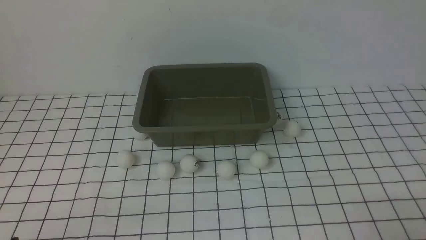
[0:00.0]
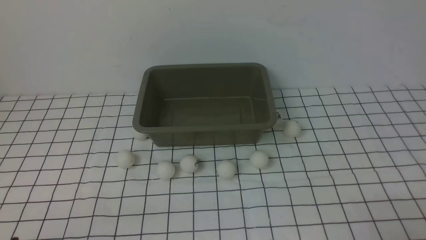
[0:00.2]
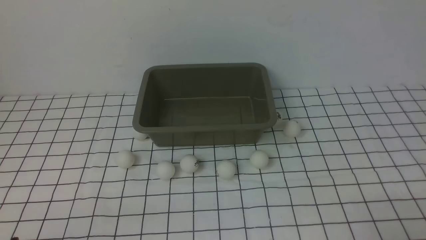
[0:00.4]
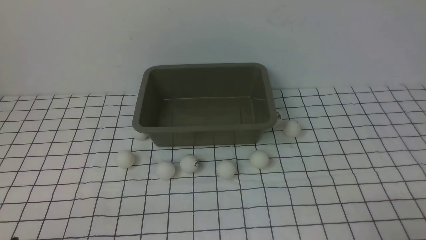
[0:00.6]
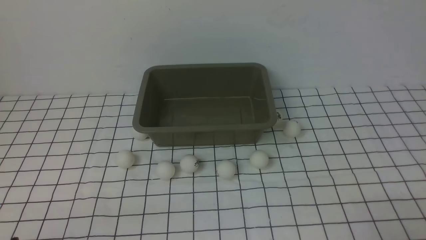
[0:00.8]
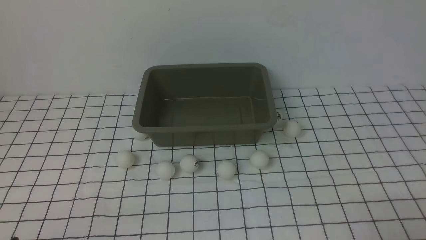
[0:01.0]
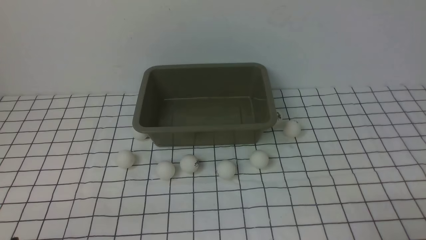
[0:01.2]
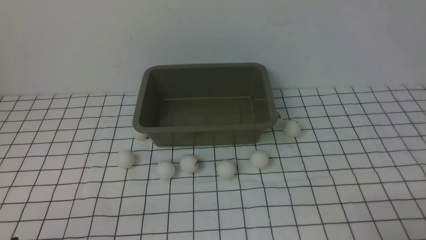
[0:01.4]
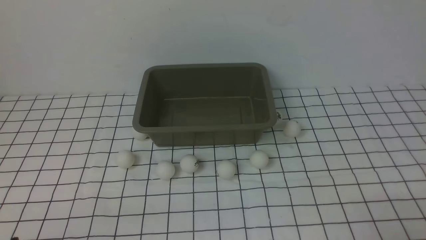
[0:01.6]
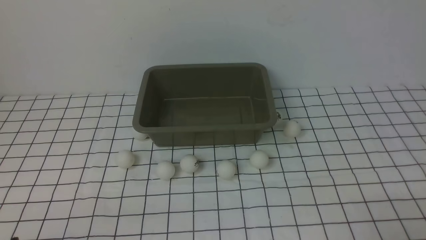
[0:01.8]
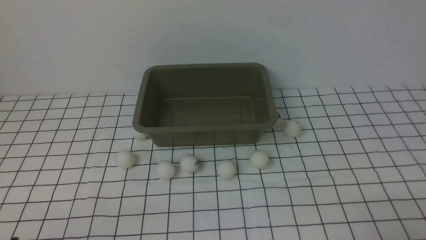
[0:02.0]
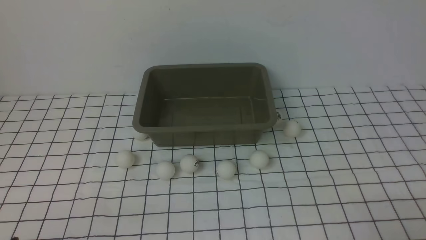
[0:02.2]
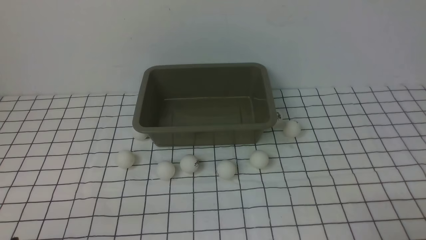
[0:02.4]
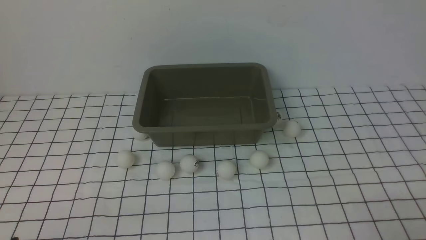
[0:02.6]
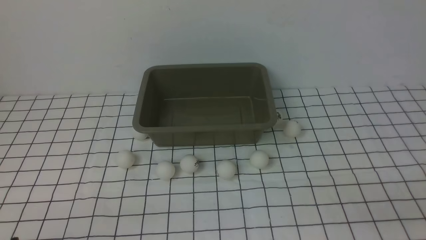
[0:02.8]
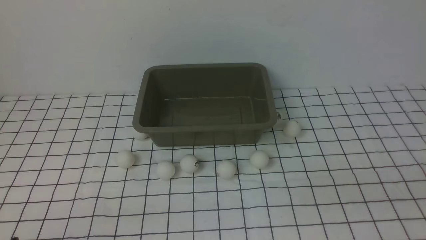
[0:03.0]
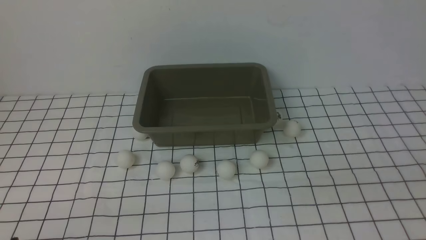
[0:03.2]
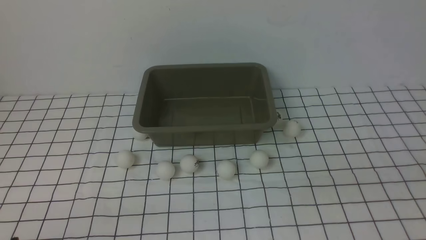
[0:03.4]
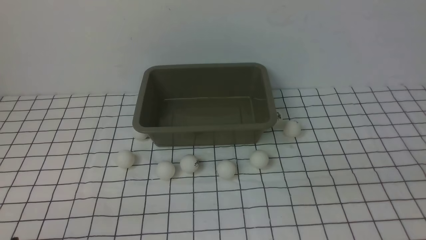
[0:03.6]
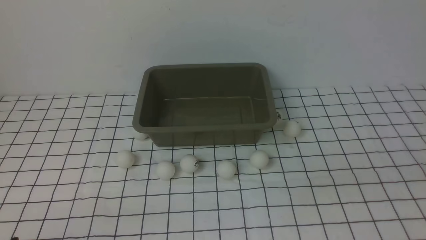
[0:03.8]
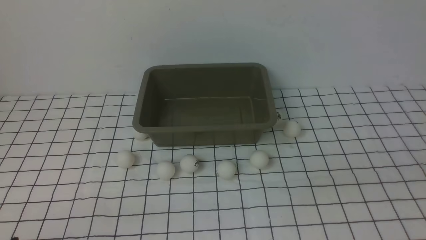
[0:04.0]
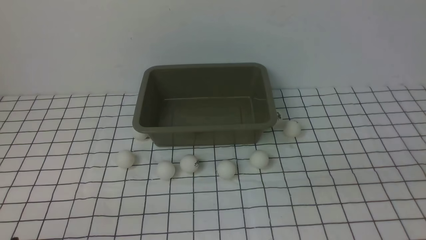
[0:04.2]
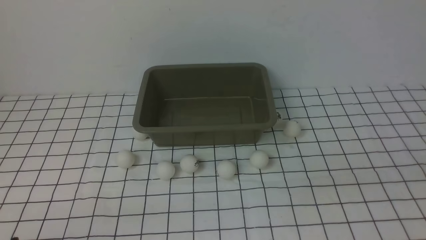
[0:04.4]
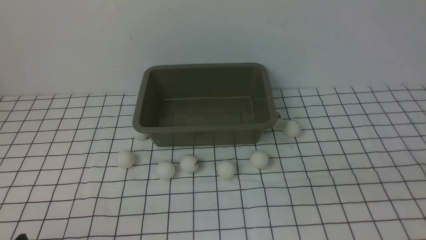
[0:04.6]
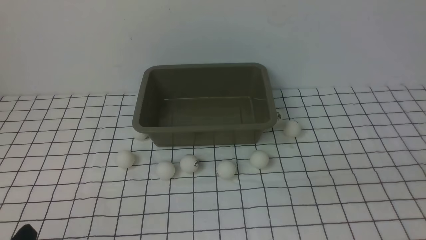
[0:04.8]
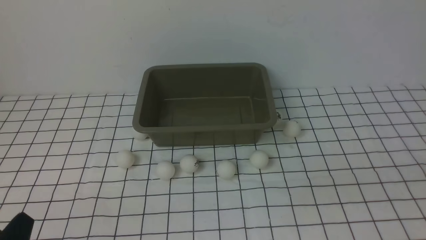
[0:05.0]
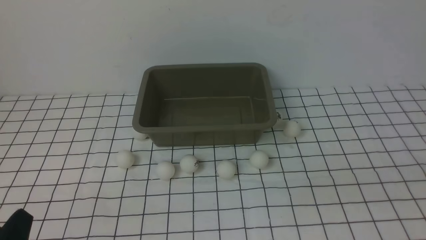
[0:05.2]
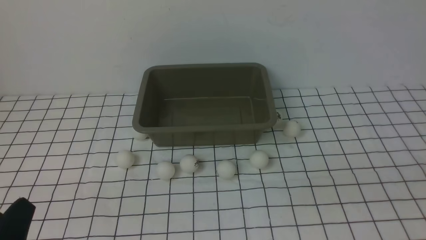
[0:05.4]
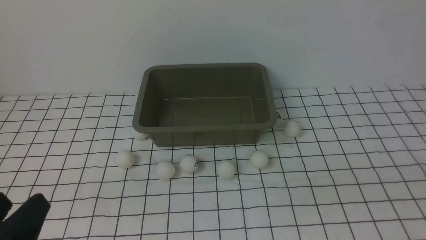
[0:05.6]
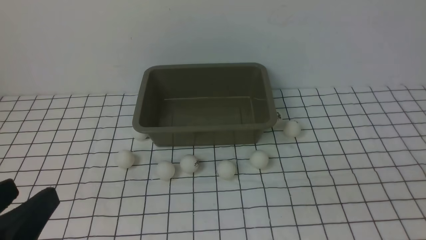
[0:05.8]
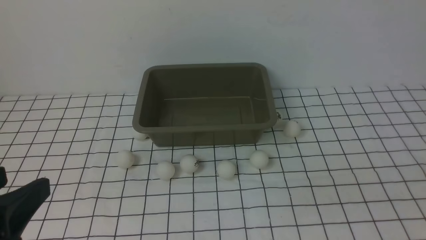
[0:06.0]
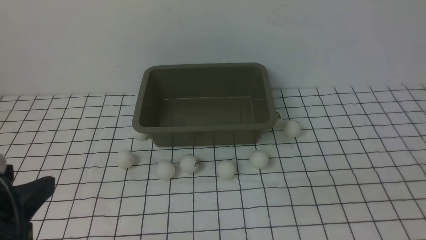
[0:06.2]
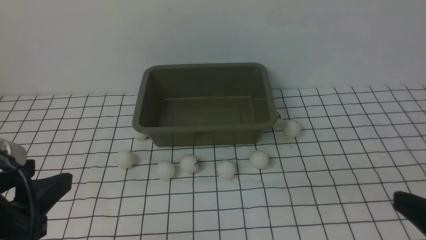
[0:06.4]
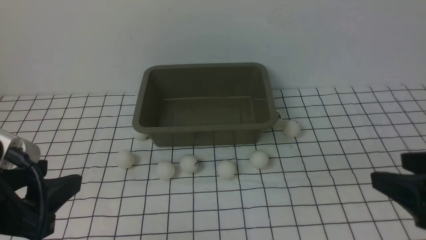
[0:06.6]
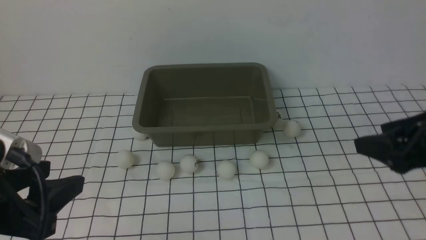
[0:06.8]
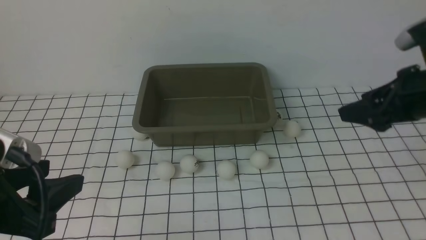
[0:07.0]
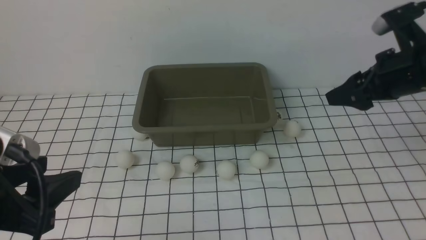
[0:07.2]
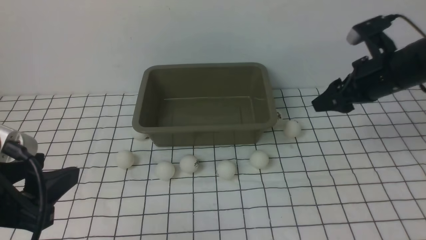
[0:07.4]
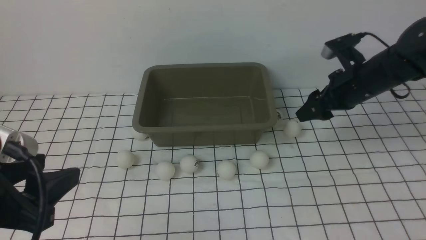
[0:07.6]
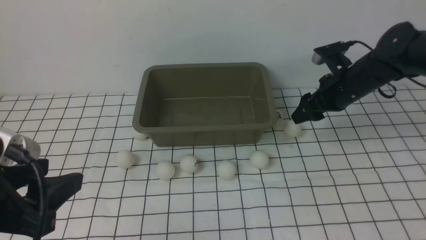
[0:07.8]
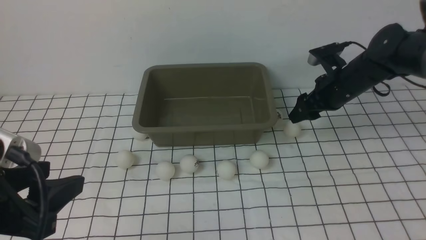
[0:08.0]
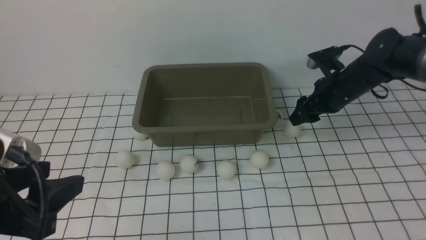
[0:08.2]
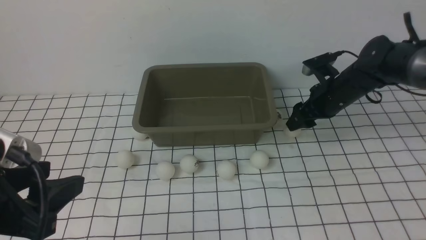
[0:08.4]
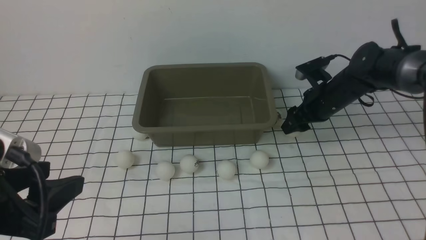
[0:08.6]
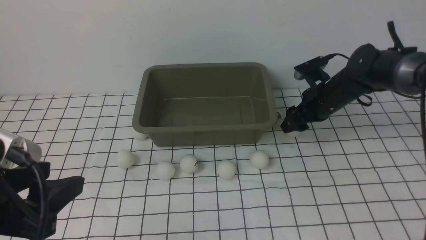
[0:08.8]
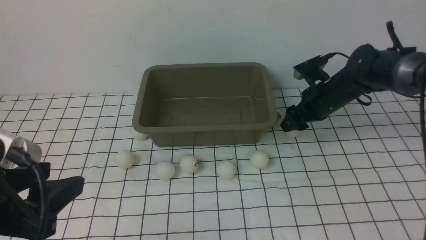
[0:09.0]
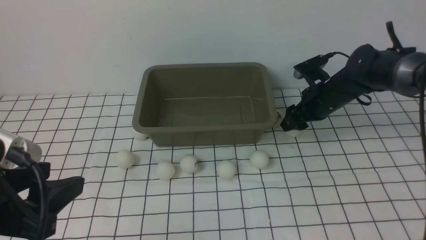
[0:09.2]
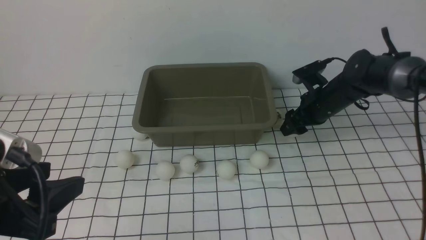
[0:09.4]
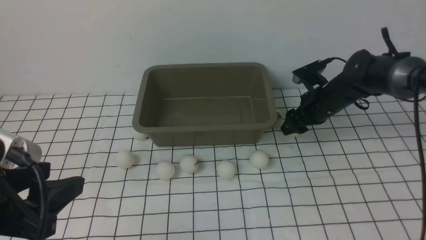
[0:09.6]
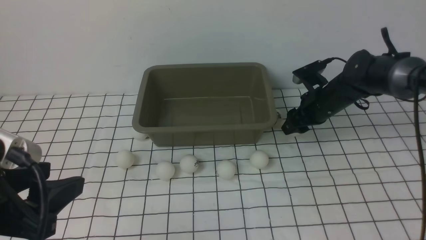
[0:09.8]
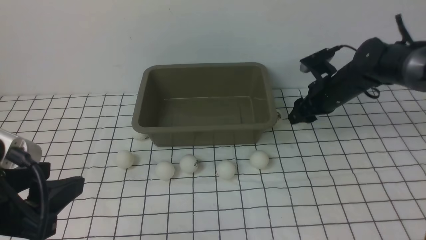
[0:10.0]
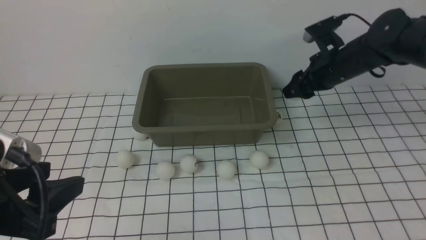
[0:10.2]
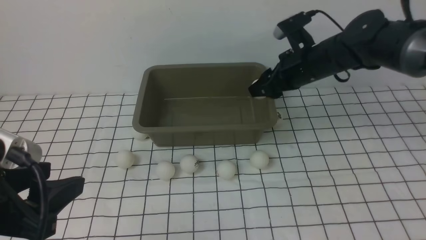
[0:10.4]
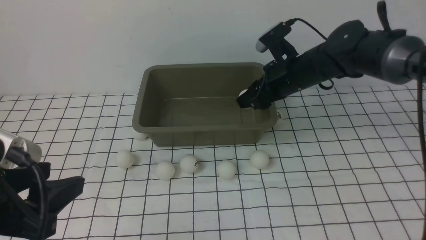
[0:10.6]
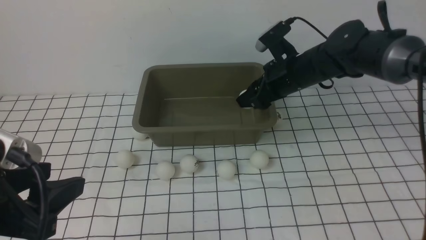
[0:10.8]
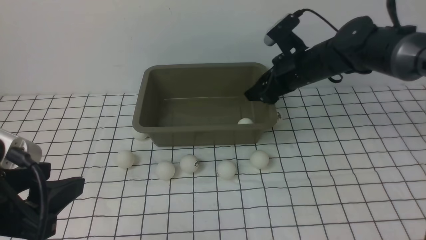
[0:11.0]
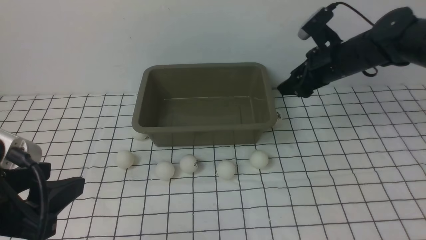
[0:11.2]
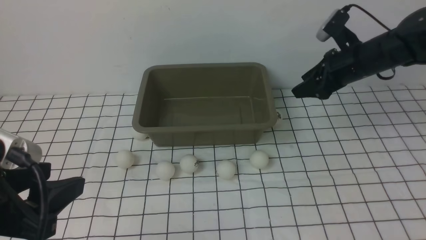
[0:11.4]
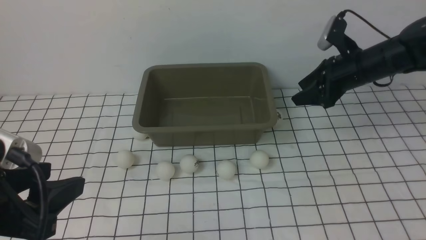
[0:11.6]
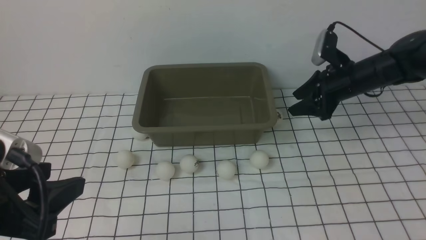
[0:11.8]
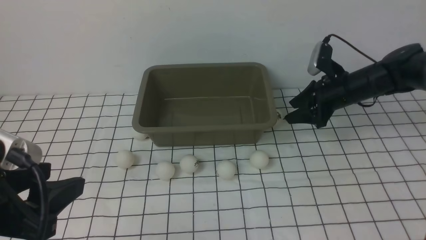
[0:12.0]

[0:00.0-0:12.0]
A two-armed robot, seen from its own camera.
Step, 0:00.0 to 0:10.0: use the right arm to clamp the table tennis ball closest to it.
Step, 0:10.2 to 0:11.0: use the right arm to put the table tennis ball into the box.
0:00.0 to 0:01.6: The two grippers keep their place.
0:04.4 to 0:06.0: The left gripper goes roughly 15 cm upward.
0:06.0 to 0:07.6: The left gripper moves forward, some 5 cm. Meanwhile the right gripper moves forward, roughly 40 cm.
0:07.6 to 0:09.0: The right gripper moves downward, approximately 5 cm.
0:09.0 to 0:10.4: The right gripper heads upward, covering approximately 10 cm, and closes its fingers.
0:10.4 to 0:12.0: The right gripper is displaced to the right and downward by approximately 10 cm.

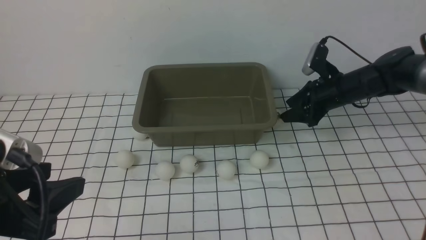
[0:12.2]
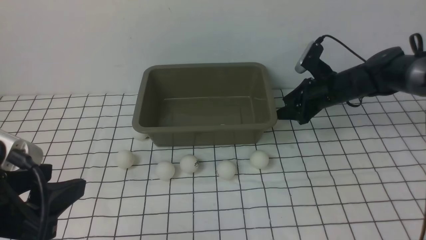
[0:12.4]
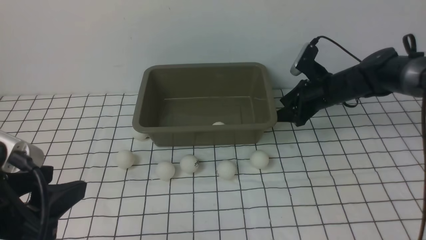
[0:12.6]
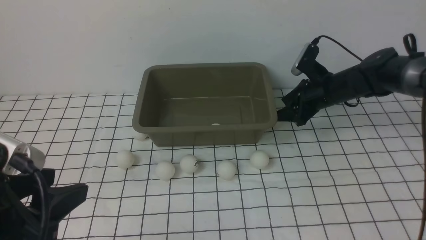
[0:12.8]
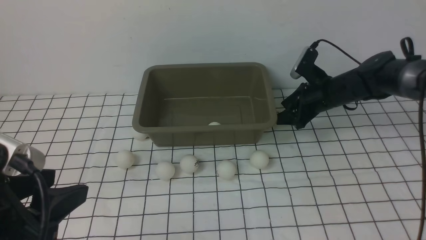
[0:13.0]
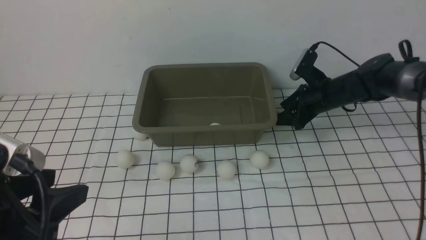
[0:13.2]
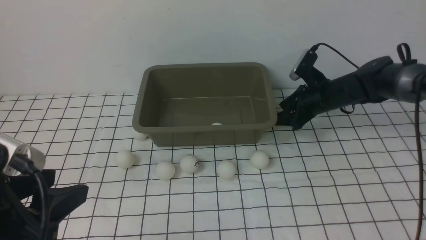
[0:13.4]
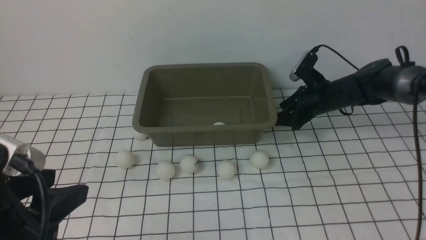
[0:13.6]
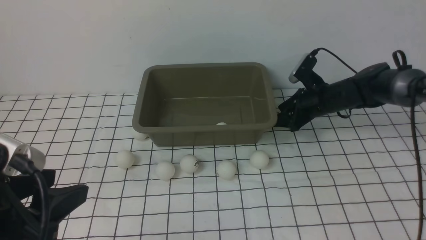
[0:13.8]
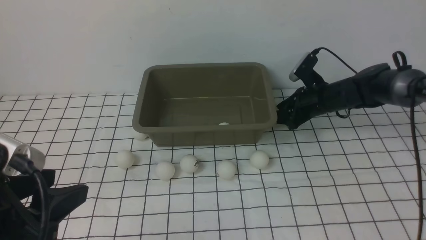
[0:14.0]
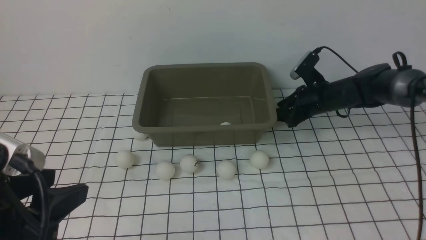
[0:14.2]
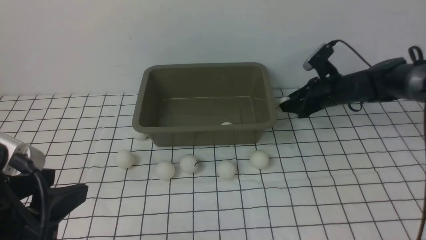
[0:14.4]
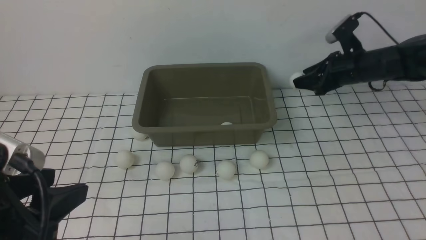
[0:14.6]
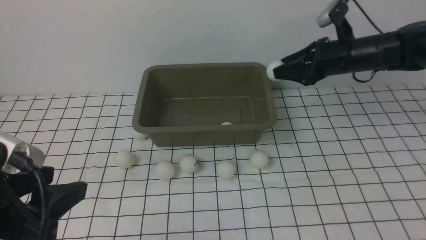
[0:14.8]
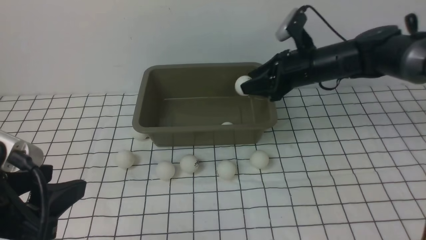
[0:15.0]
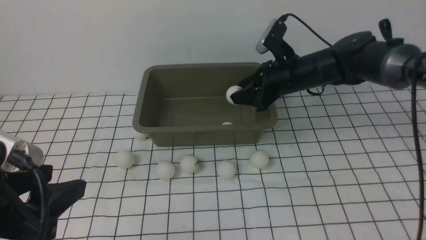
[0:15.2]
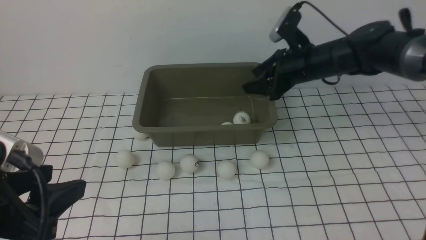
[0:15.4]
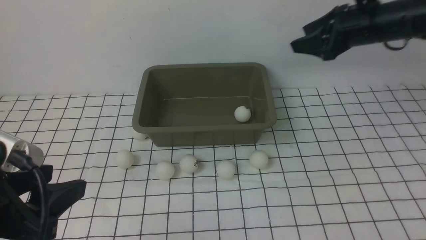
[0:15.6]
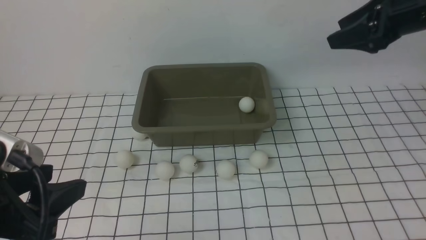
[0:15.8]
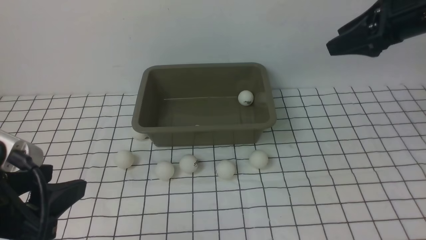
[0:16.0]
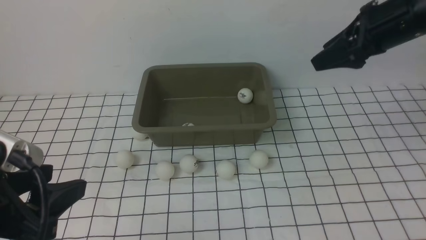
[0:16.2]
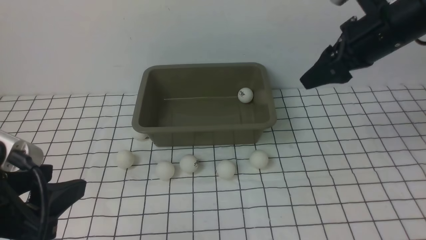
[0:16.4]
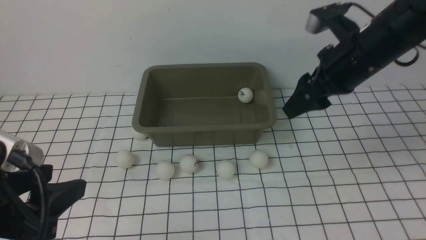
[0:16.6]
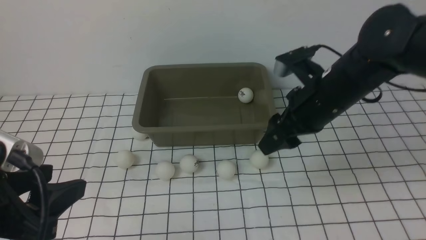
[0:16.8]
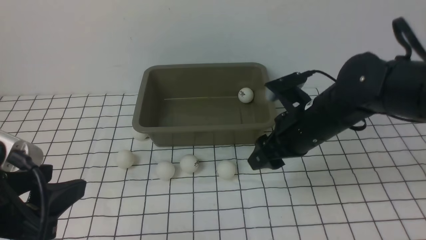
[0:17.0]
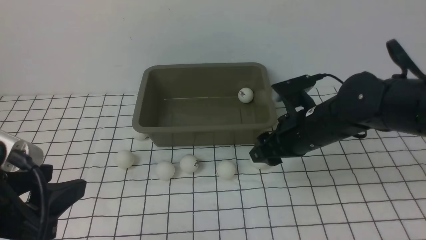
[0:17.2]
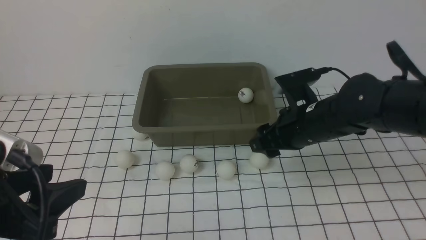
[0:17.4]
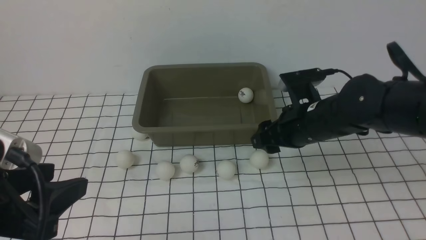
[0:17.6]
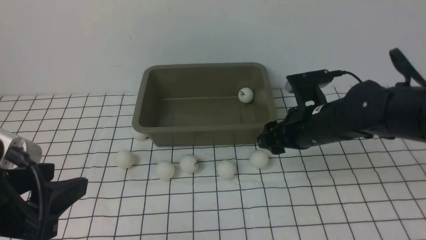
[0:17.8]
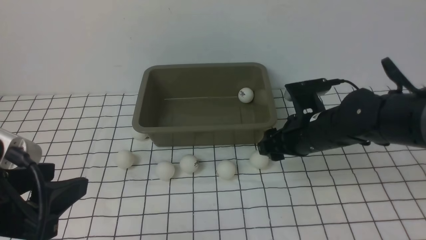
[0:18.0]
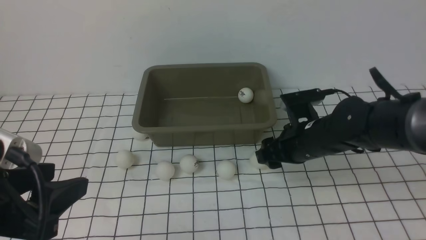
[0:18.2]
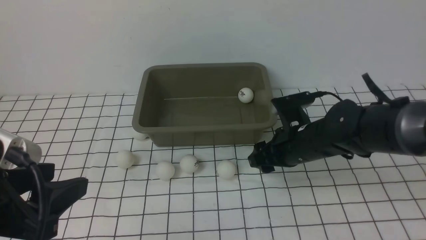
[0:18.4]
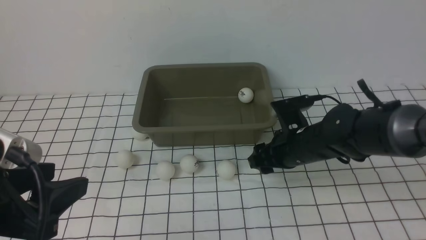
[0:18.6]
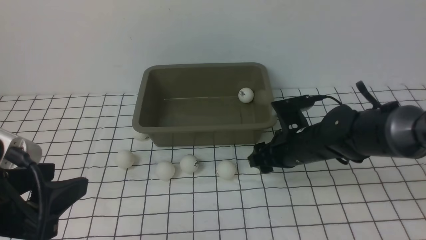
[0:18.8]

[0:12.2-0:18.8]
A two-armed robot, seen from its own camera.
Step, 0:12.2 to 0:14.4: use the right arm to clamp the table tennis ball closest to it.
Step, 0:14.8 to 0:15.4: use the right arm to put the table tennis ball into the box.
0:12.2 to 0:13.8: The grippers move only a little.
0:13.8 to 0:15.4: The right gripper shifts some 15 cm upward.
0:15.4 to 0:17.2: The right gripper heads backward, to the left and downward, covering approximately 15 cm.
0:17.2 to 0:18.8: The right gripper is displaced downward by approximately 5 cm.
